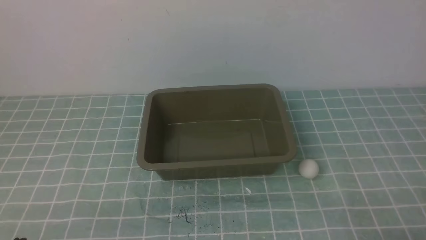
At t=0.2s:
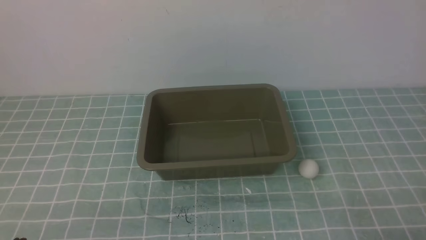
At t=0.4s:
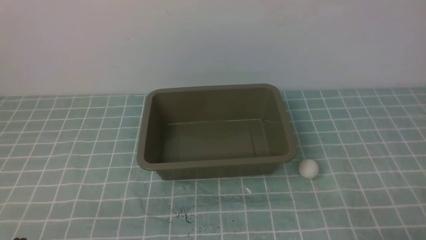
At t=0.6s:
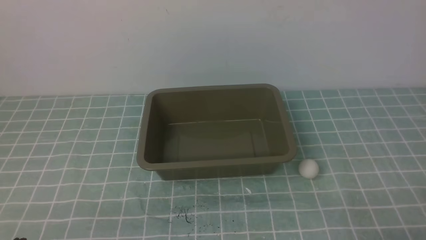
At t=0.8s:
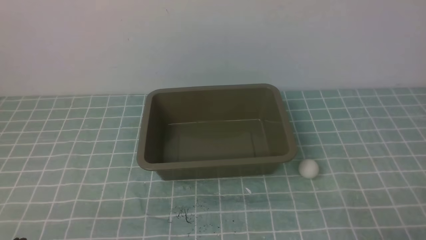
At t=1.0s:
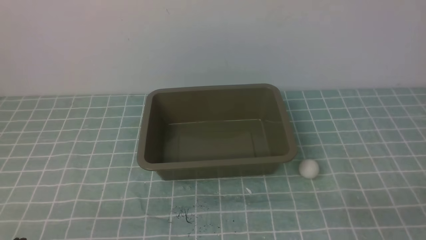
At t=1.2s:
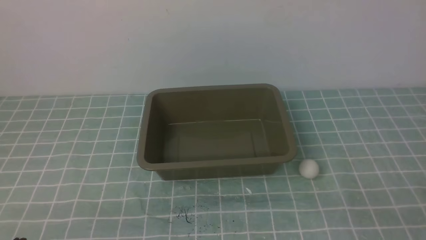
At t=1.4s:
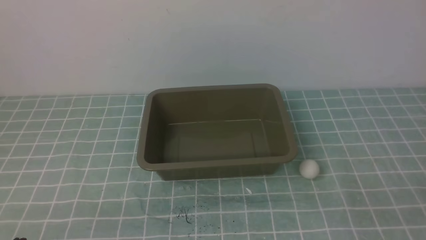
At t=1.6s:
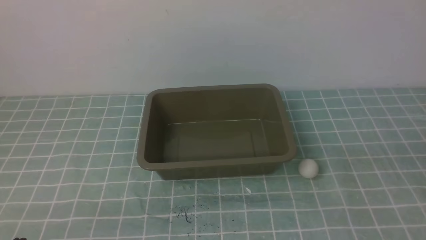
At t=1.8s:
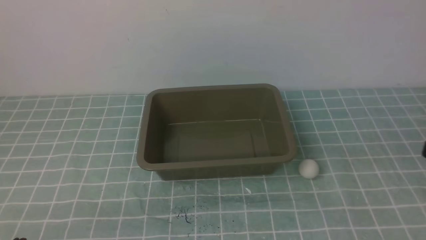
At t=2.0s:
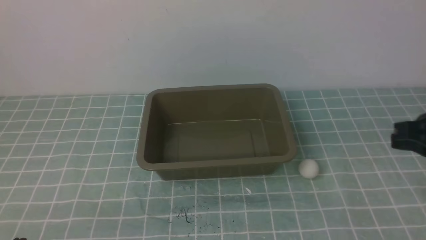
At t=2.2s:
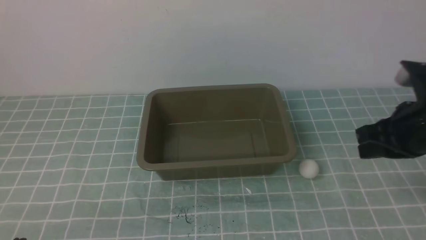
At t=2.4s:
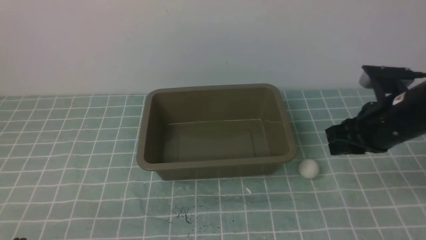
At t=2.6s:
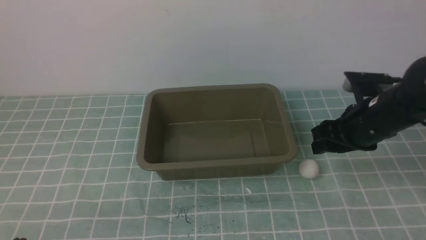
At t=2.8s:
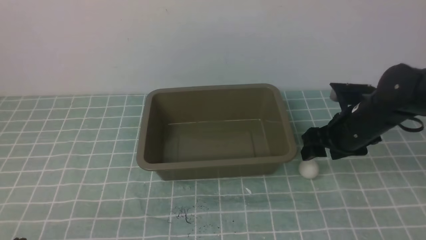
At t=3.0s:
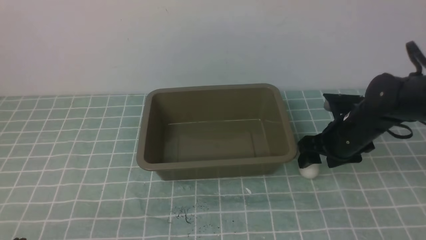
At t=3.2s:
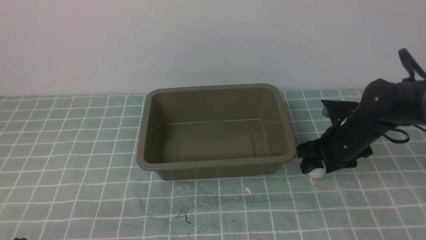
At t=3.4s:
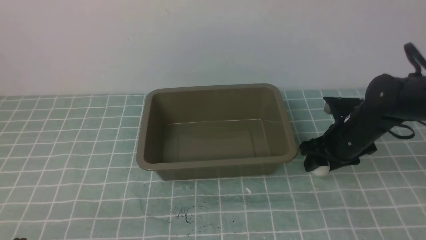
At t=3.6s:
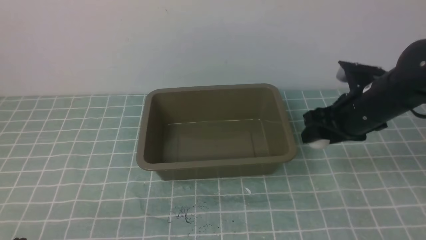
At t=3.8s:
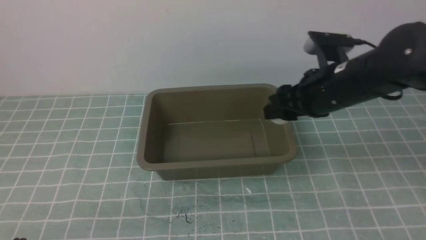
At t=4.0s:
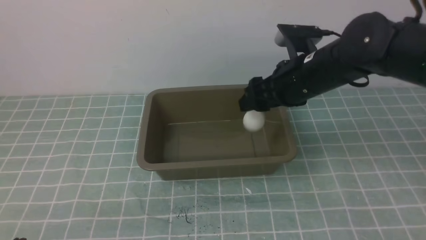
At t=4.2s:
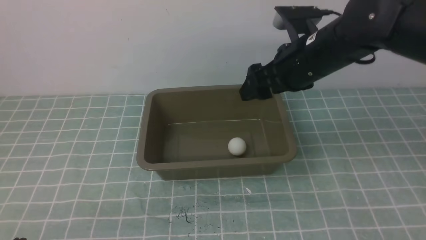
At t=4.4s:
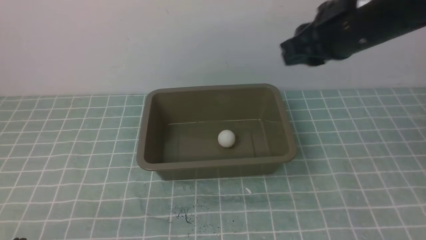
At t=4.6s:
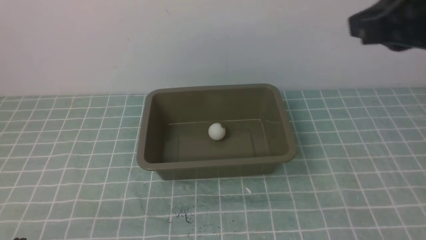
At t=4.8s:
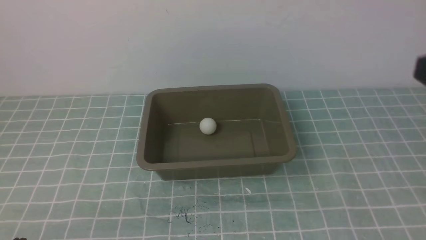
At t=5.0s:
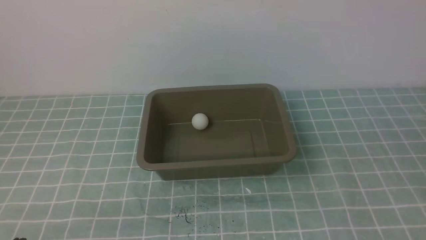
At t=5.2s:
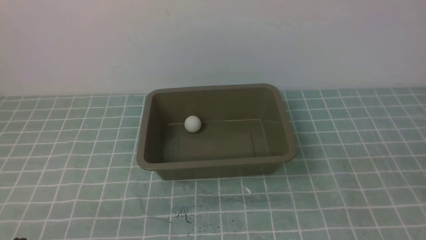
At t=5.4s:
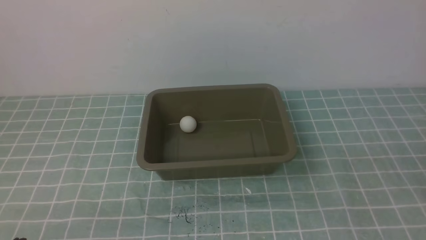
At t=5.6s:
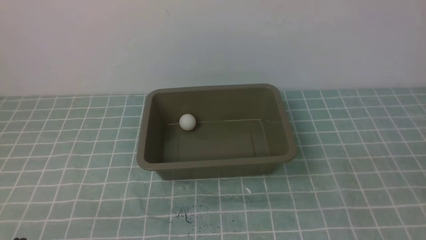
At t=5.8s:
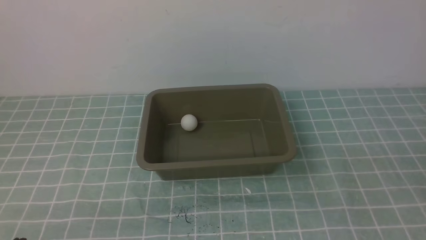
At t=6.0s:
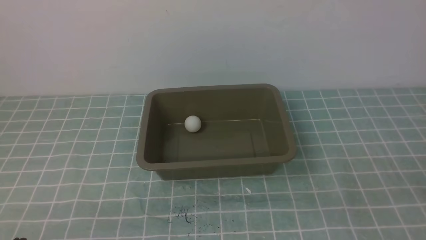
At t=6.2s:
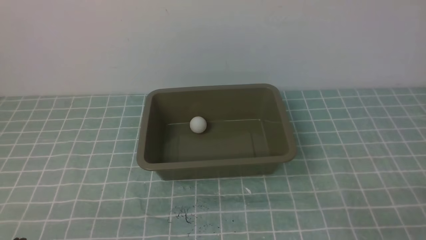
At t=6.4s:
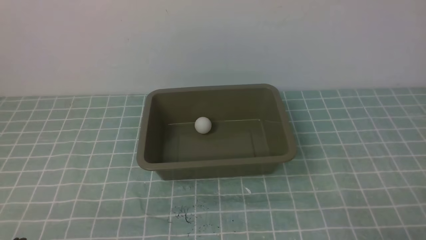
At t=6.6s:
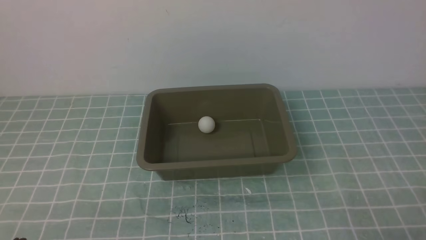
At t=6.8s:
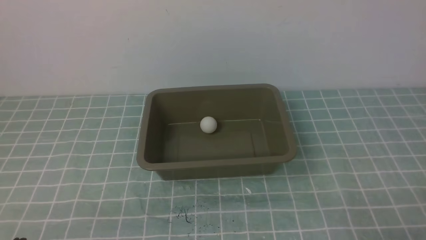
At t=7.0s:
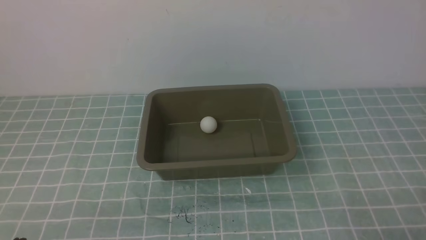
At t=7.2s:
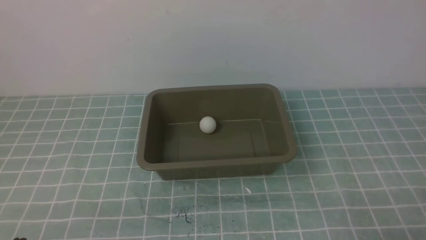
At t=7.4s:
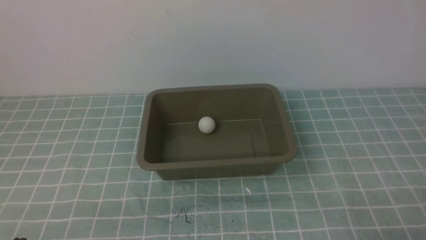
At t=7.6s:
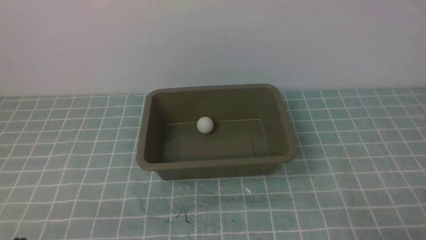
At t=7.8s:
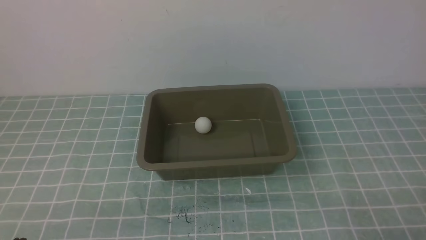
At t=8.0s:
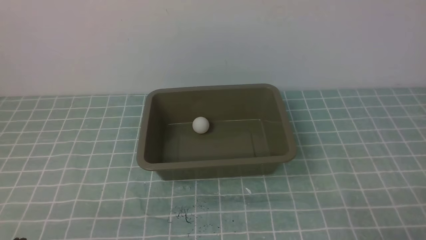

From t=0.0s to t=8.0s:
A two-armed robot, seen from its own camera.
Step, from t=0.0s to t=3.4s: use the right arm to clamp the table tennis ball closest to it.
Step, from t=3.6s to t=4.2s: use the right arm to put the table tennis ball into the box.
From t=1.6s to t=3.2s: The right gripper shifts about 30 cm forward, and opens its fingers.
From t=3.2s to t=4.8s: The right gripper shifts some 30 cm upward and backward, and closes up.
From t=4.8s to t=6.4s: The right gripper shifts roughly 25 cm downward and backward.
From t=6.4s to t=8.0s: Both grippers stay put.
